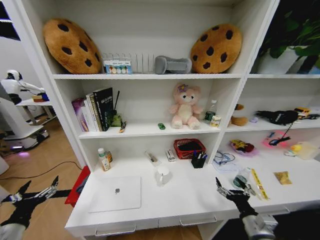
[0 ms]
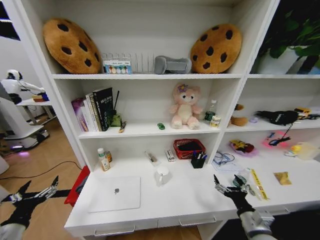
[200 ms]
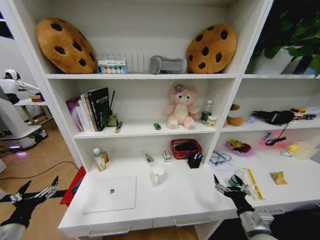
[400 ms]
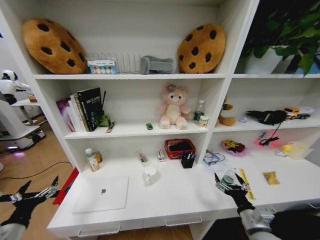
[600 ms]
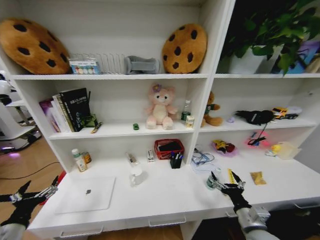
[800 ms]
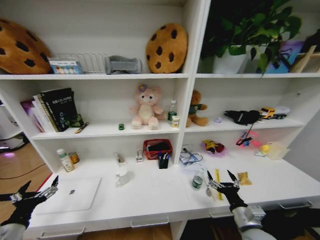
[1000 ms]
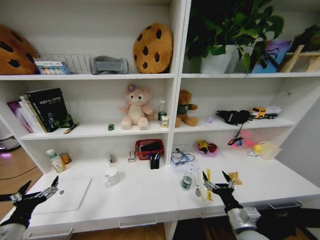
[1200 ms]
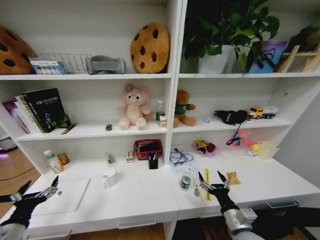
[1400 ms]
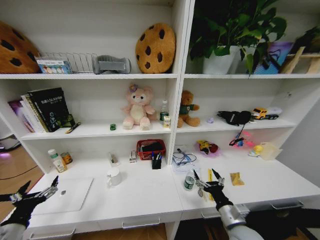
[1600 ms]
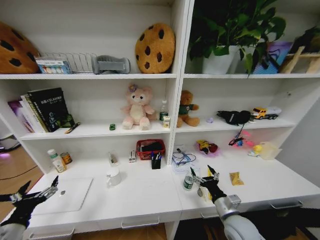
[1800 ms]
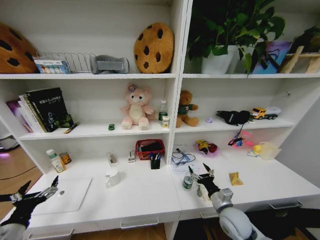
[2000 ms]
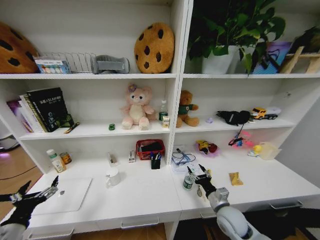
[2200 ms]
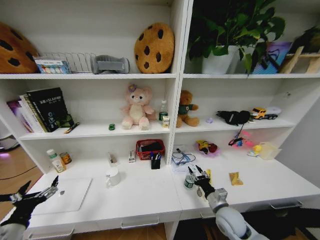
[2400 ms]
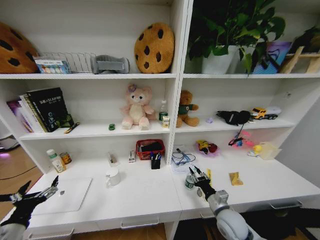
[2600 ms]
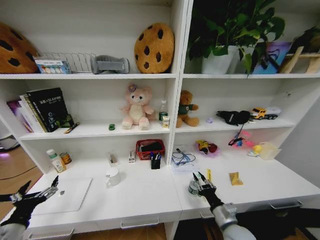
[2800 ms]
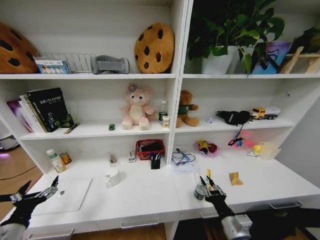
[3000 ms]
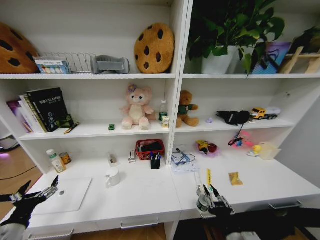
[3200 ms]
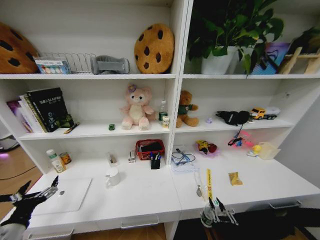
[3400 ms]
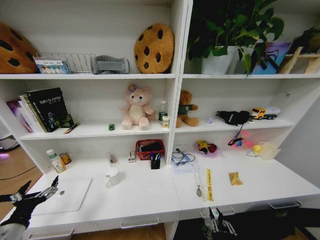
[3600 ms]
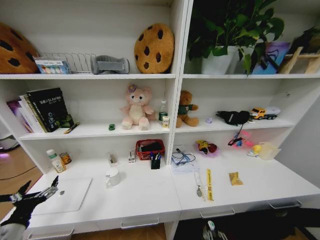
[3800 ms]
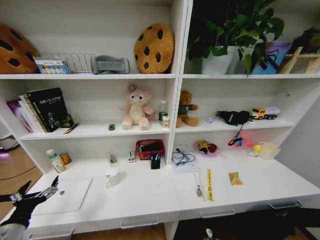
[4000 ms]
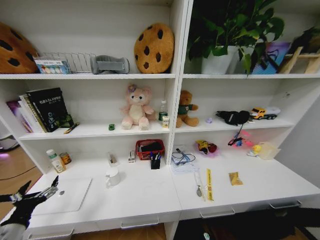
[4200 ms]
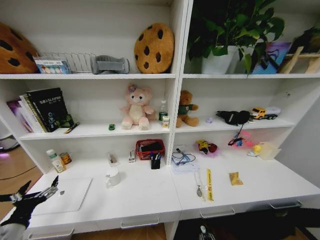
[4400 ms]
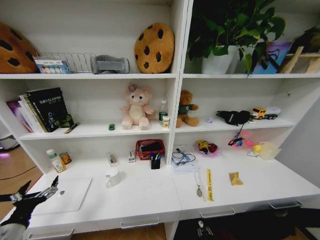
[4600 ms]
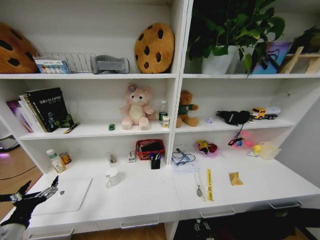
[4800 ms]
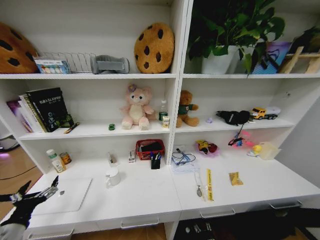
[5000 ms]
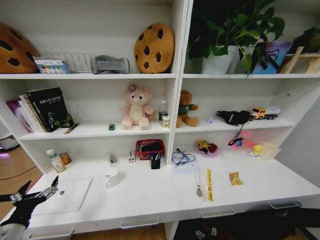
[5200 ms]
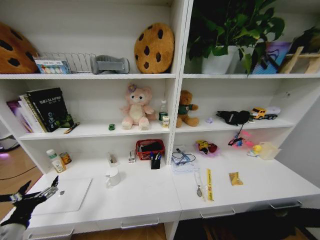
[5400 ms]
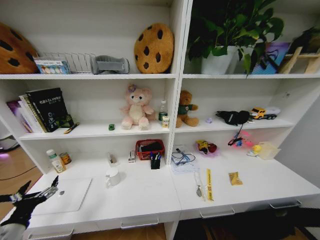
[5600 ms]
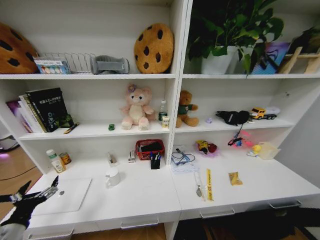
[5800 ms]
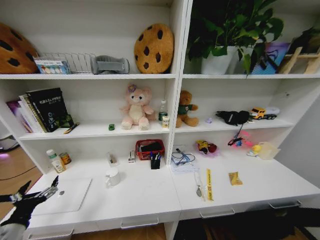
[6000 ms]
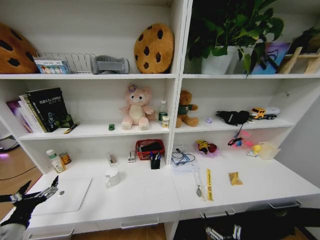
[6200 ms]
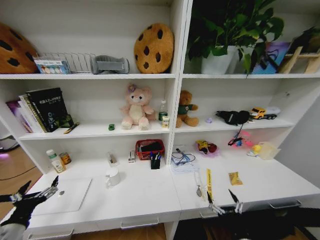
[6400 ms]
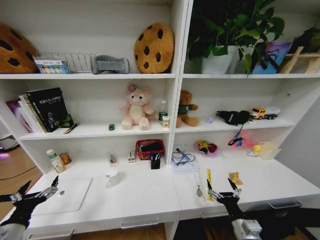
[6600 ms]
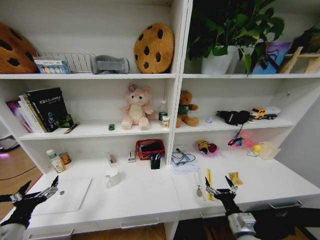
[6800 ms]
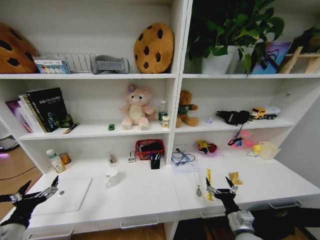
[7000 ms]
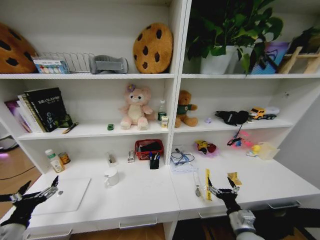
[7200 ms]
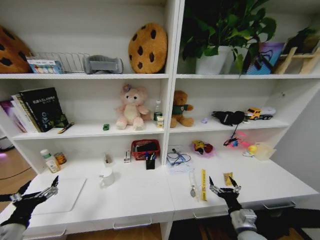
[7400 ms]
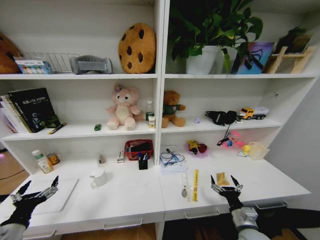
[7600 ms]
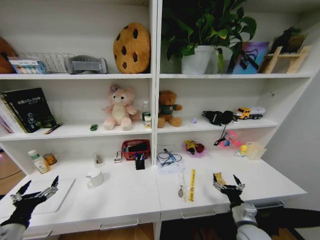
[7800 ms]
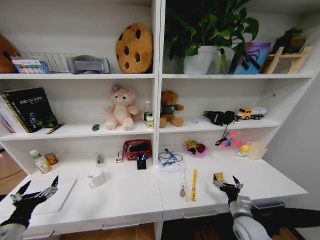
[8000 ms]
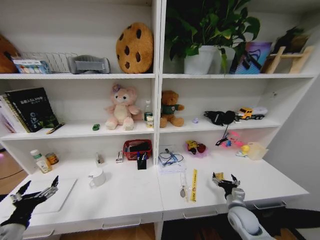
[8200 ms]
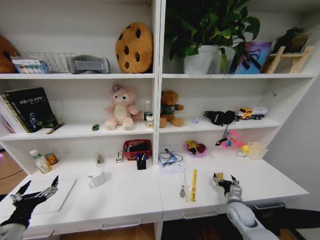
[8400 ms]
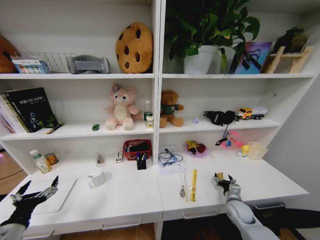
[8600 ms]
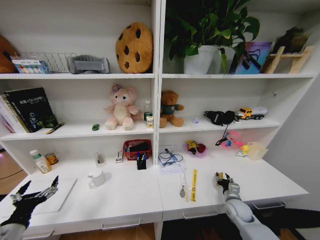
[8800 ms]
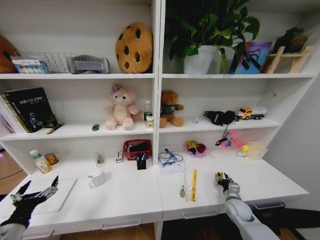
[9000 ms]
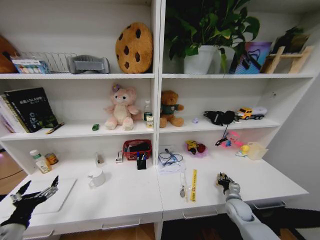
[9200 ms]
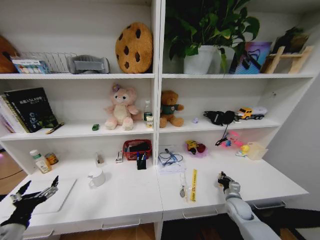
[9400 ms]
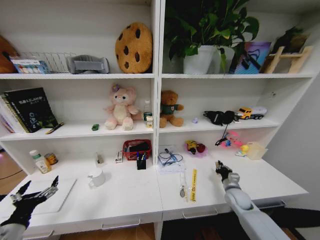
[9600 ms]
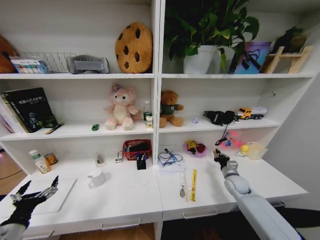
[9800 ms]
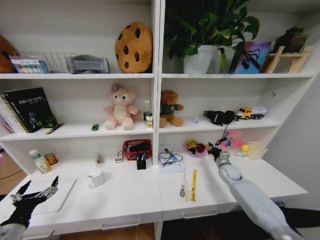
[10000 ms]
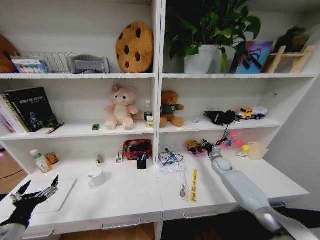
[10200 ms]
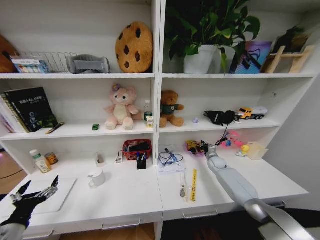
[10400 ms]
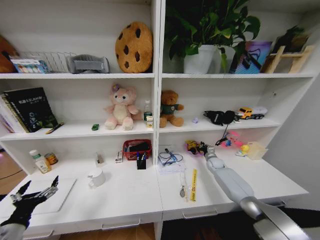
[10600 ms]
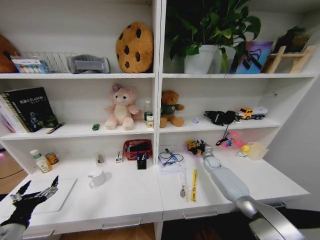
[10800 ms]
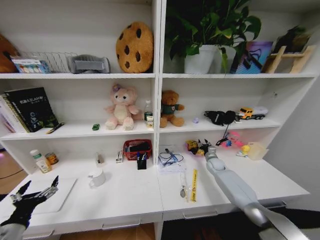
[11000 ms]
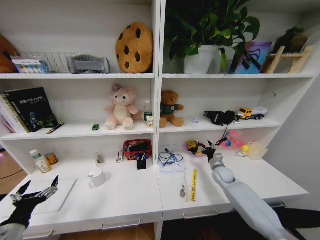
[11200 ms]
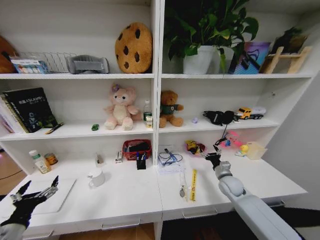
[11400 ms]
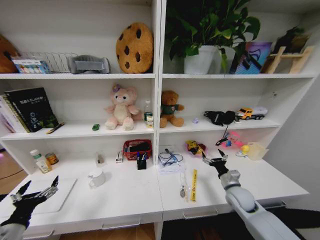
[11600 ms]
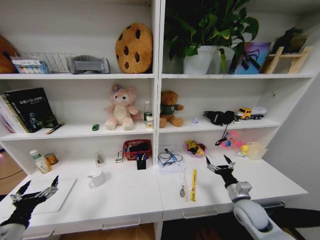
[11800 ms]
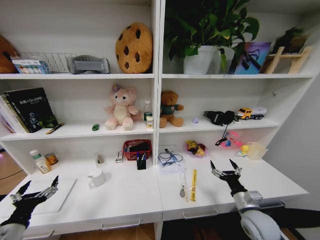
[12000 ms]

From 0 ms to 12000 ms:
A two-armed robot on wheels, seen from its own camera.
Task of the whole recording: Organize the objects on the table.
From 0 ms to 1600 ms: The right gripper heads to the left, covering about 5 cm.
From 1600 ms to 3000 ms: The right gripper goes forward and returns, approximately 5 cm each way, and closes up.
From 3000 ms to 4400 ms: The right gripper is displaced downward by approximately 30 cm.
From 6000 ms to 7600 ms: The right gripper travels forward and upward by roughly 25 cm.
From 7600 ms to 9000 ms: The right gripper goes approximately 15 cm forward, downward and to the right, and closes.
From 9000 ms to 10400 ms: The right gripper shifts approximately 25 cm forward, and closes.
From 10400 ms to 12000 ms: The right gripper shifts some 30 cm backward, and opens up.

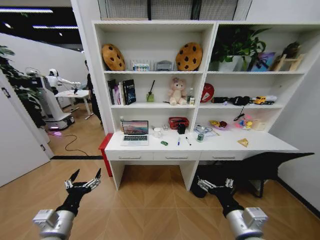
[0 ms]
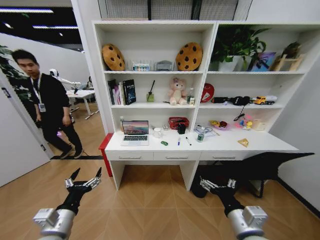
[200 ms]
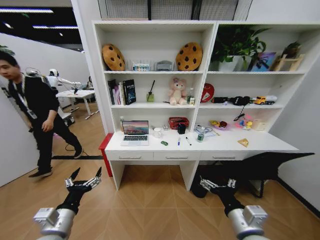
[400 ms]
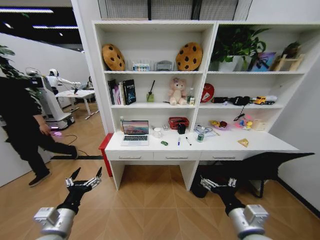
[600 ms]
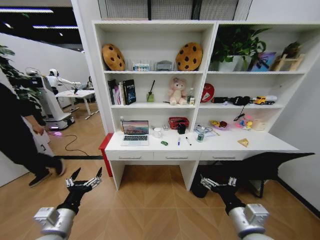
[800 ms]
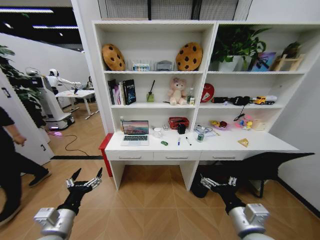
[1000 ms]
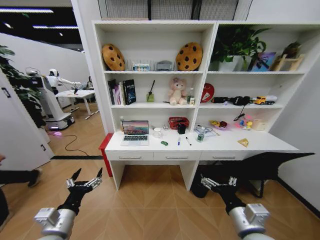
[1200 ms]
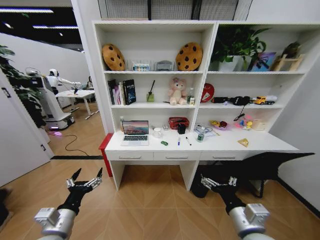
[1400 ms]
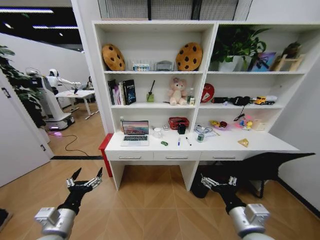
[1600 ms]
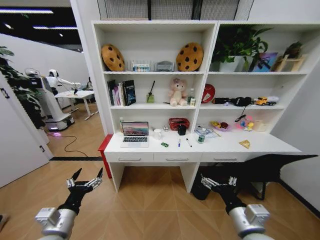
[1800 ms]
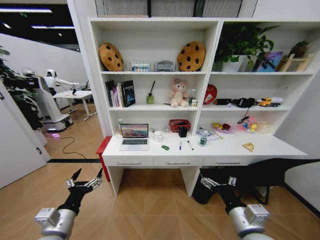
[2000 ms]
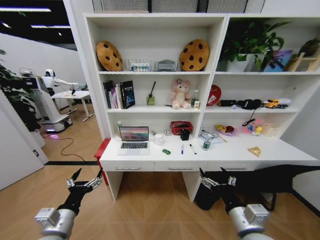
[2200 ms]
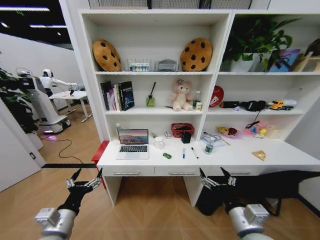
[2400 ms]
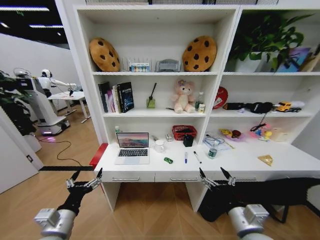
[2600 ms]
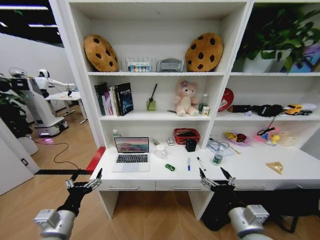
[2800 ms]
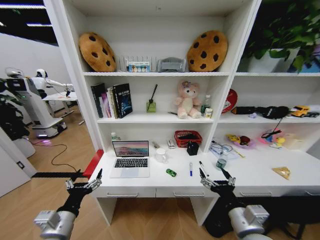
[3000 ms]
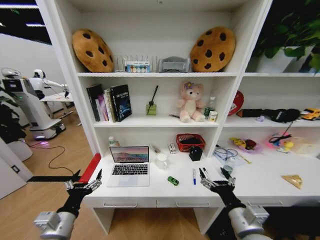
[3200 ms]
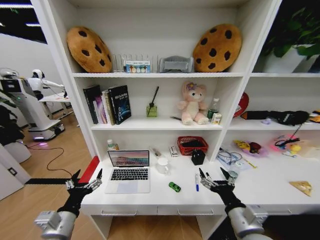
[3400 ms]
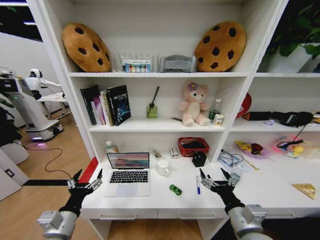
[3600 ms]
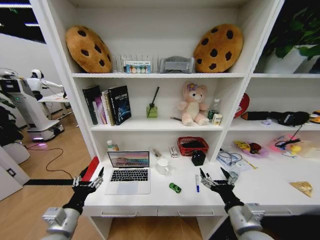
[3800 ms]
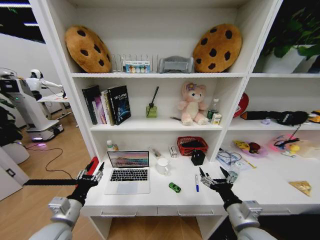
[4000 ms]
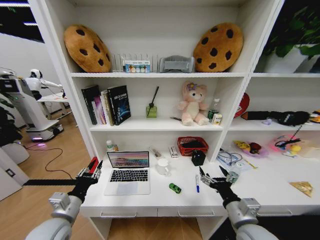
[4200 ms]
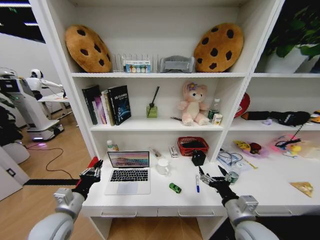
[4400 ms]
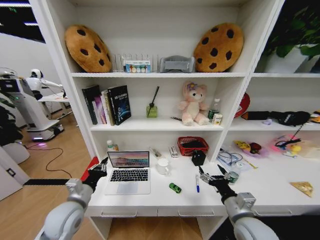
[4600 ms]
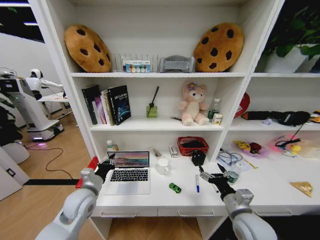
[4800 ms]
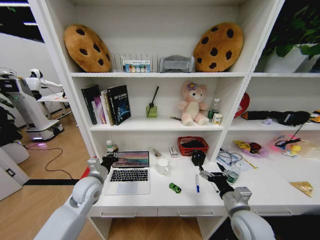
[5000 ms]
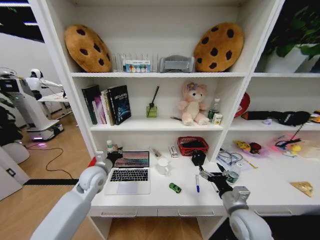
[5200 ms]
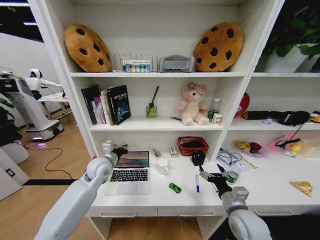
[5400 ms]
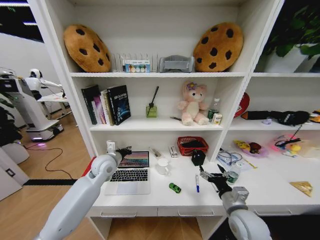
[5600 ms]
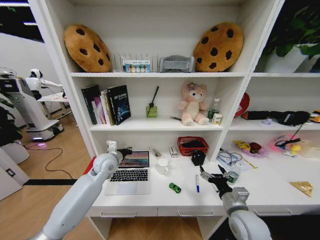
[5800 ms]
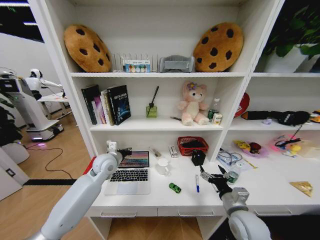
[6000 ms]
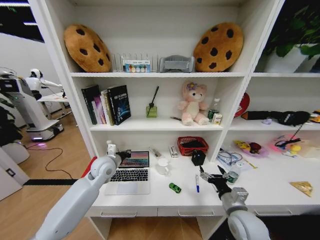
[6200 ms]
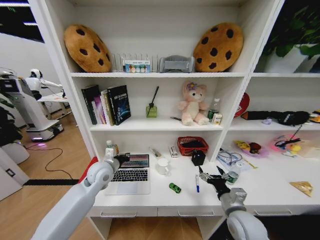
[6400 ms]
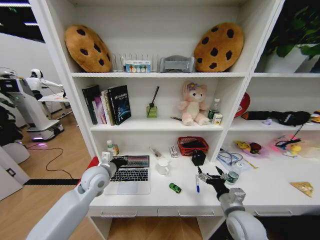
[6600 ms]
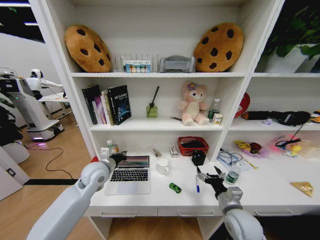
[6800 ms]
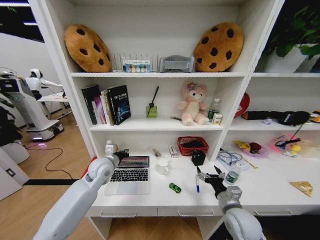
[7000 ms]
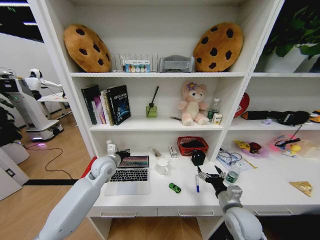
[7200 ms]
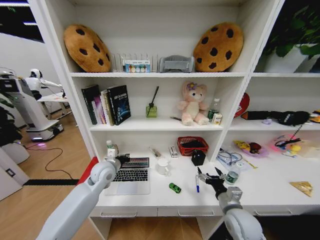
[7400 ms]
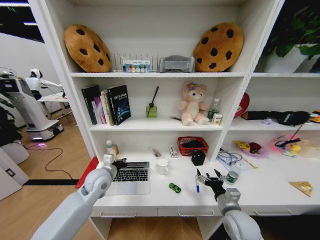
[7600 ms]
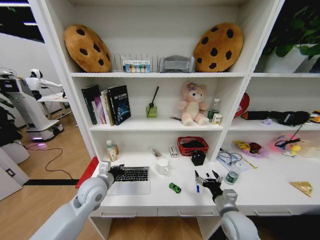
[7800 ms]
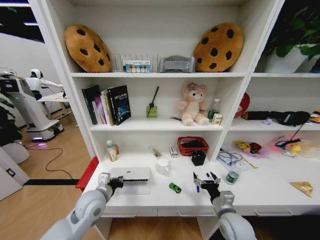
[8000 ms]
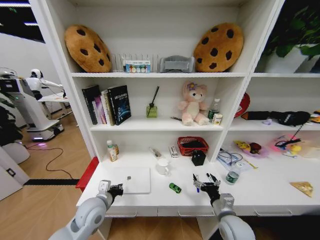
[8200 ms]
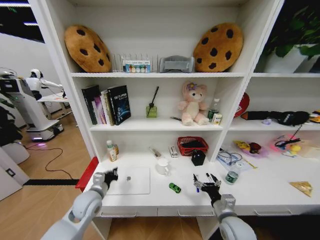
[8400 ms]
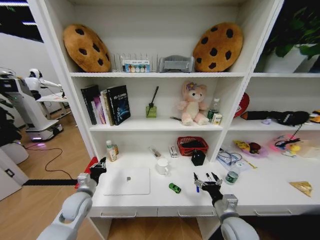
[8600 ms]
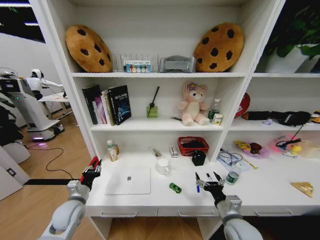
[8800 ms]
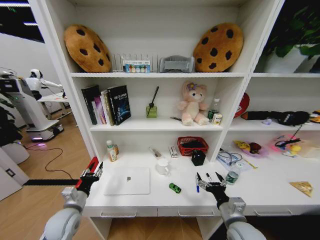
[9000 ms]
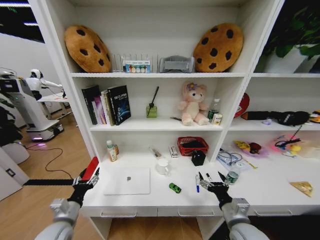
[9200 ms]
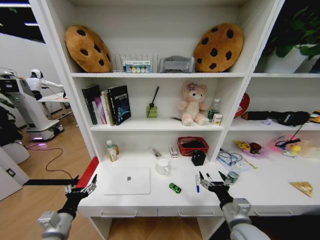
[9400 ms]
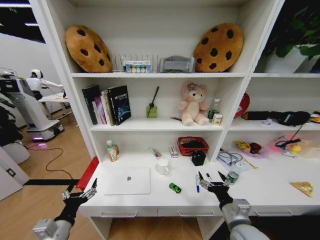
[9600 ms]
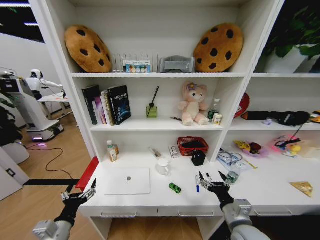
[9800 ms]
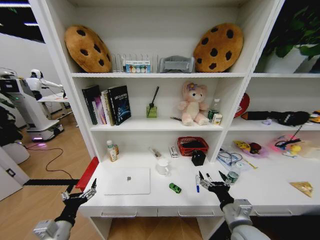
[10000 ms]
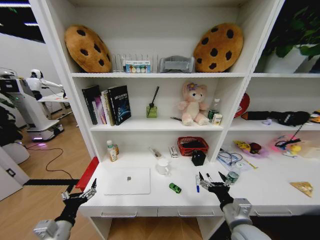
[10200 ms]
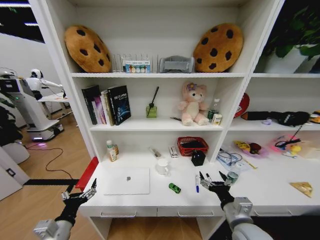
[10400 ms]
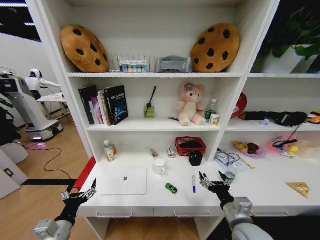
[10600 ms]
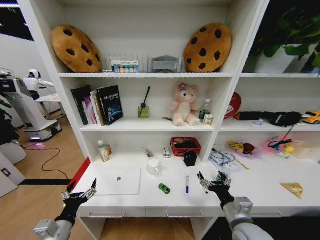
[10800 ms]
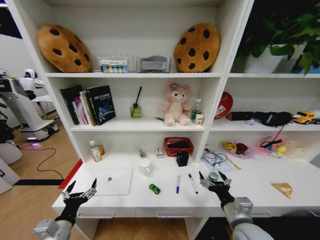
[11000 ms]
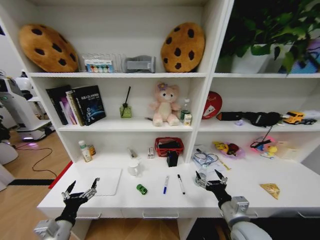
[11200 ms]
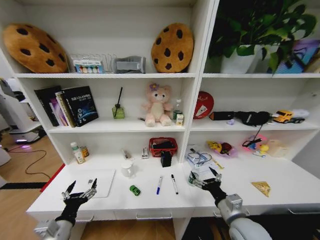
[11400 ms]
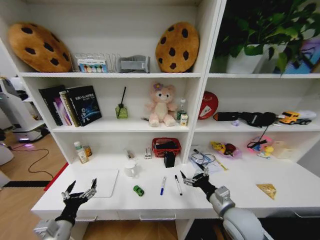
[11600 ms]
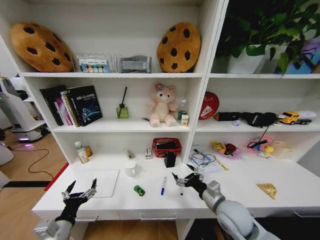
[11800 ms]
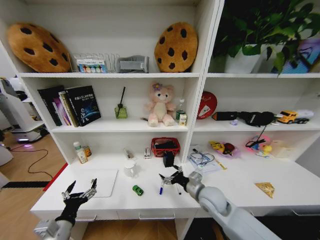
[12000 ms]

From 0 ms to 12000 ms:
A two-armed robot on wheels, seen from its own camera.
Task of the whole recording: Organize the objects on the table.
From 3000 ms to 4400 ms: The left gripper goes some 5 cm forward, and closes its fingers.
From 4400 ms to 6000 ms: The left gripper heads forward and to the right, covering some 25 cm.
From 6000 ms to 7600 ms: The left gripper goes forward and backward, some 5 cm each way, reversing 2 times.
From 7600 ms to 9000 ms: The left gripper goes forward and backward, approximately 10 cm each way, reversing 2 times, and opens.
From 9000 ms to 10400 ms: The left gripper is displaced backward by approximately 10 cm, and opens.
From 10400 ms to 12000 ms: The right gripper travels forward and to the left by about 15 cm.
